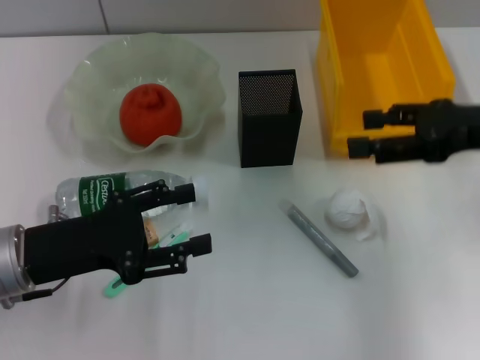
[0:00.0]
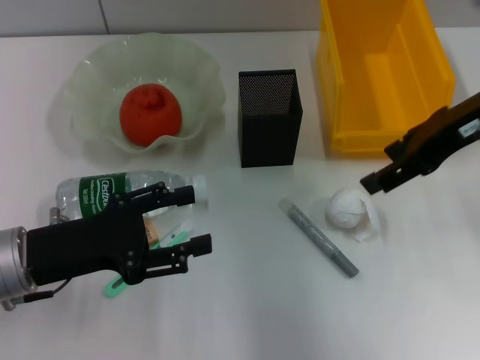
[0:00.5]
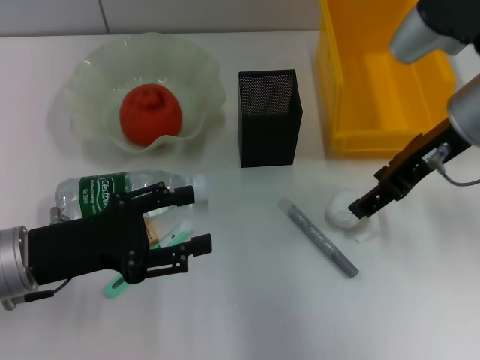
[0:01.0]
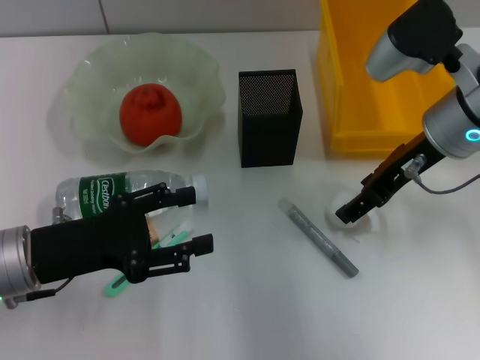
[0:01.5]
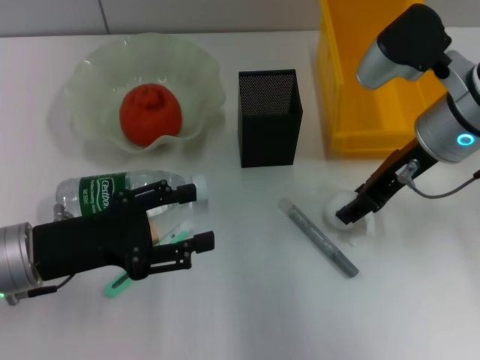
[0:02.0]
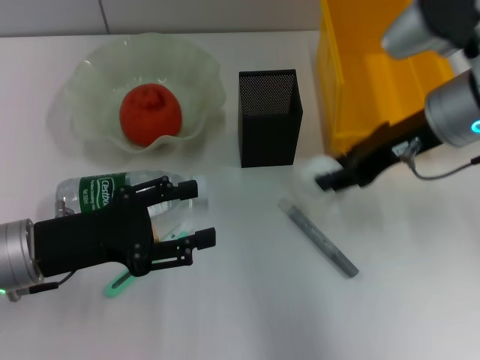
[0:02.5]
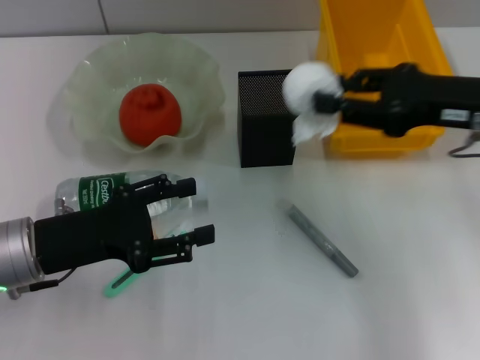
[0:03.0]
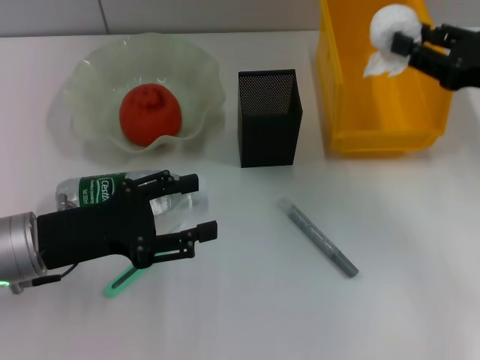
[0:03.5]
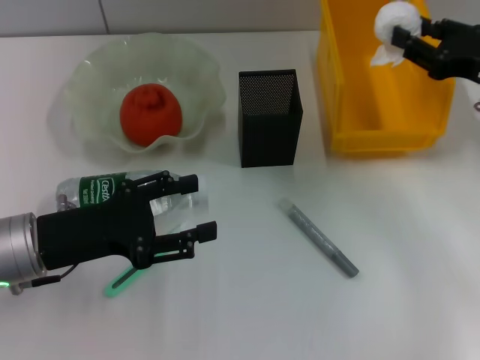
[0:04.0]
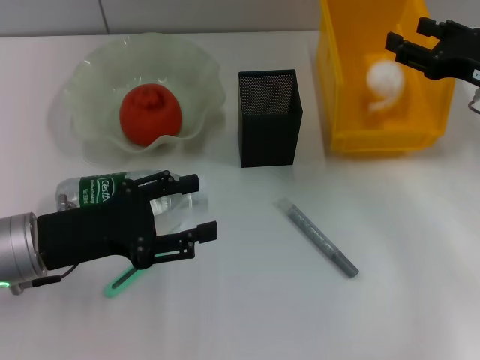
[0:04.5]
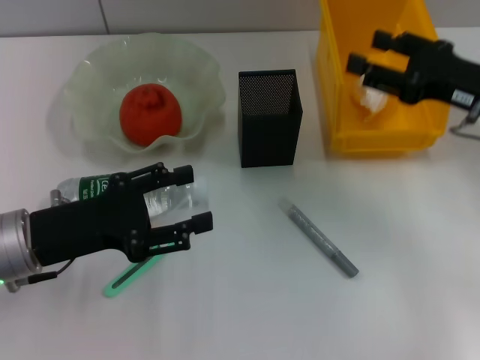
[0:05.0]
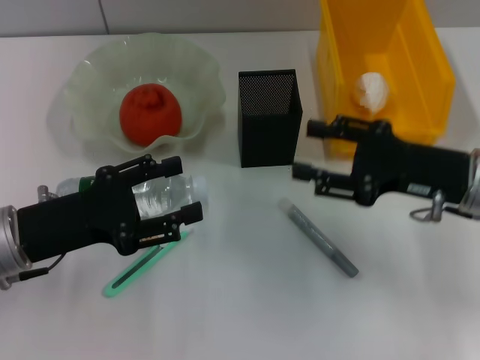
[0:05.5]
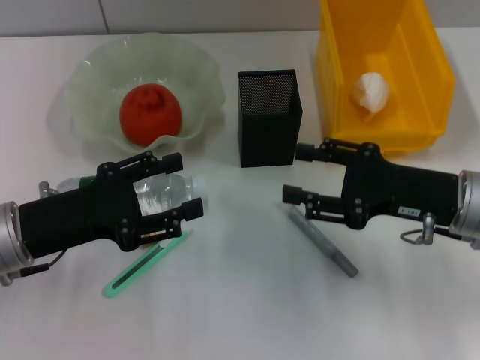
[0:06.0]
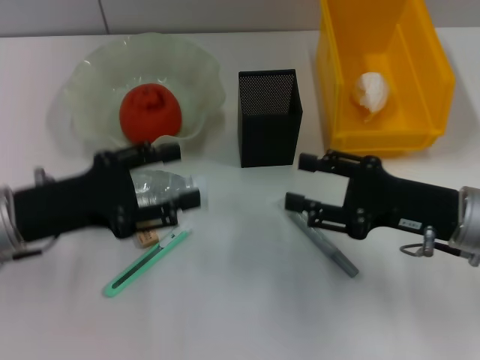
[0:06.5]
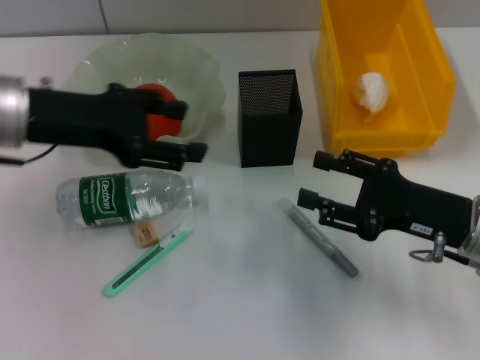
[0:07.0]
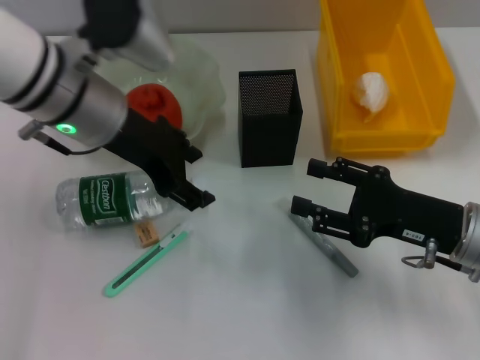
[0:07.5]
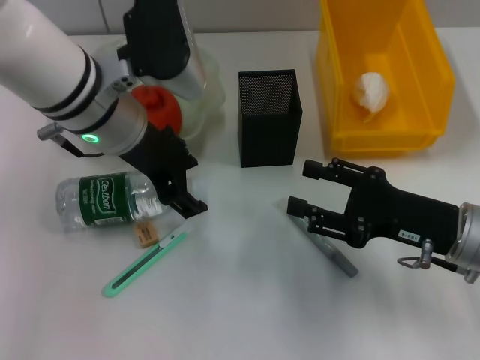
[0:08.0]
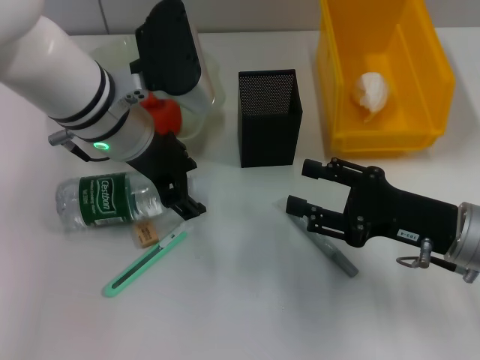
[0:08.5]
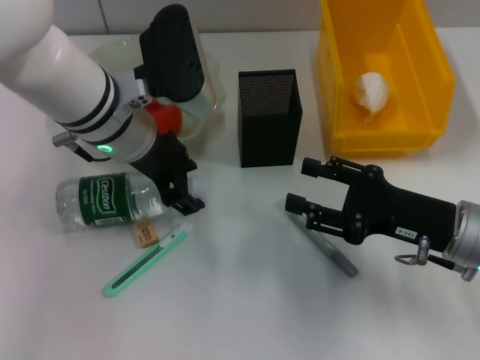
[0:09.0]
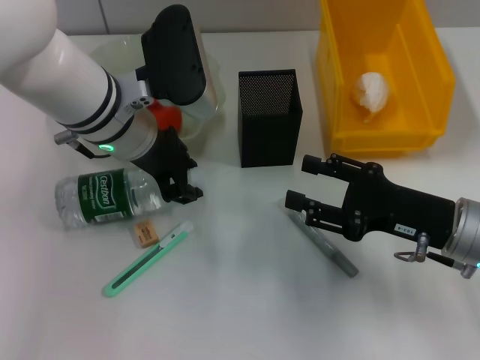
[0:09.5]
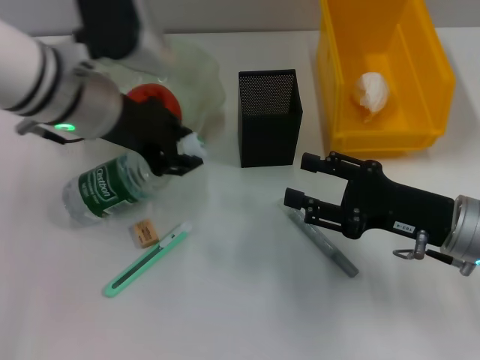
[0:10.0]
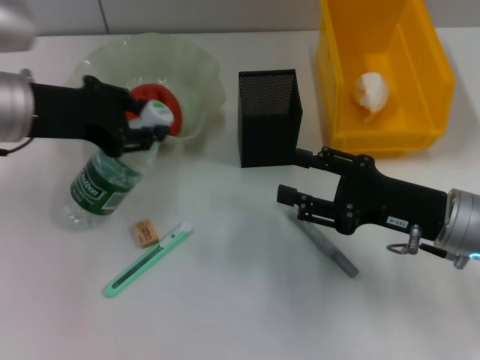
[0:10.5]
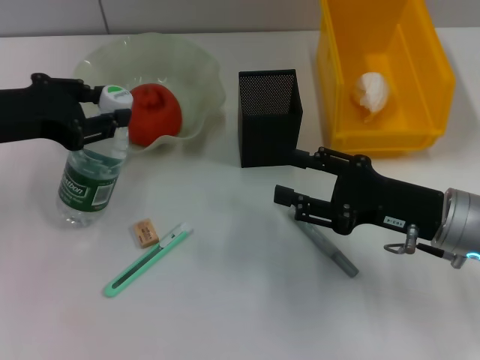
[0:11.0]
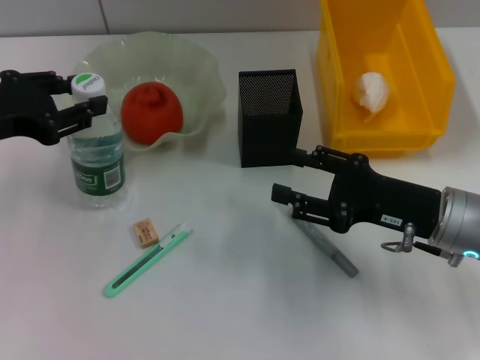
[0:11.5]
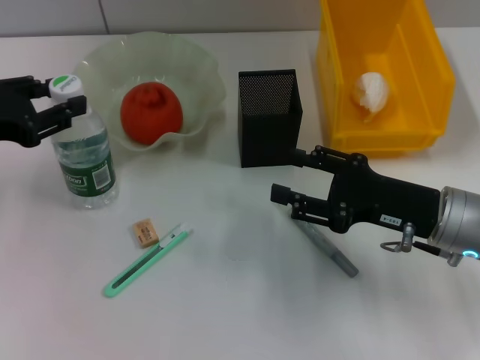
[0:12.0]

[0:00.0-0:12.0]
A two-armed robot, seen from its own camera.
Step, 0:00.0 to 0:02.0: Grab the paper ball with the right hand.
Step, 0:02.5 to 0:05.0: Place the paper ball into the trash can with the right hand.
Step, 0:05.5 to 0:09.0: Grab the water bottle with the left hand.
0:00.0 to 0:02.0: The right gripper moves to the left and forward, some 10 cm.
0:02.0 to 0:04.0: The right gripper shifts some 10 cm to the right.
0:04.0 to 0:06.0: The right gripper moves backward and to the left, approximately 10 cm.
0:06.0 to 0:08.0: The left gripper moves to the right, forward and upward, approximately 20 cm.
0:08.0 to 0:10.0: The left gripper closes.
0:10.0 to 0:12.0: The left gripper travels to the left by some 15 cm.

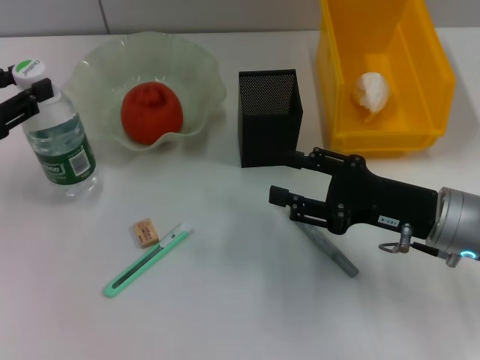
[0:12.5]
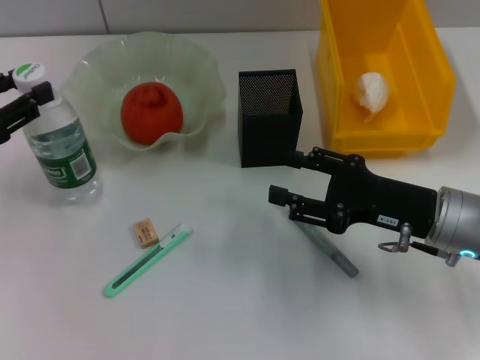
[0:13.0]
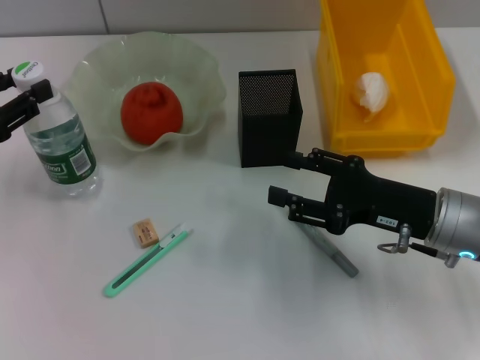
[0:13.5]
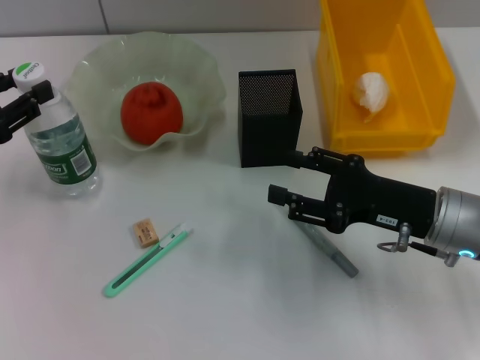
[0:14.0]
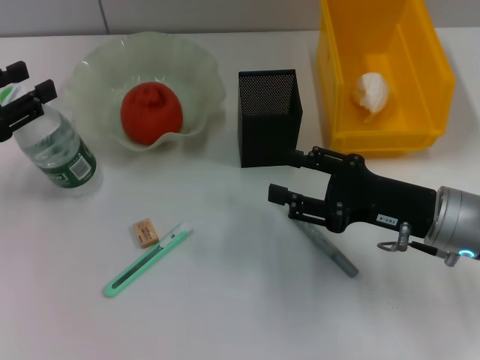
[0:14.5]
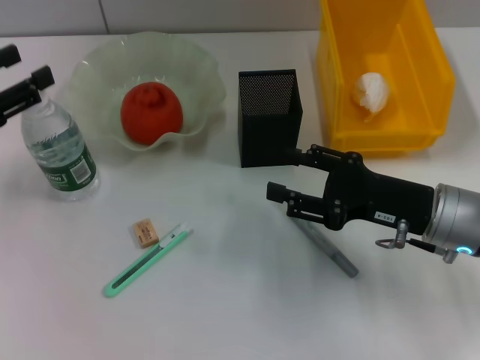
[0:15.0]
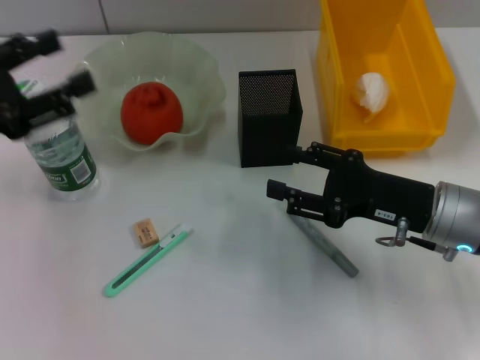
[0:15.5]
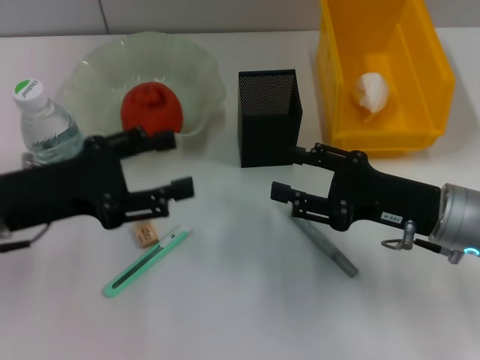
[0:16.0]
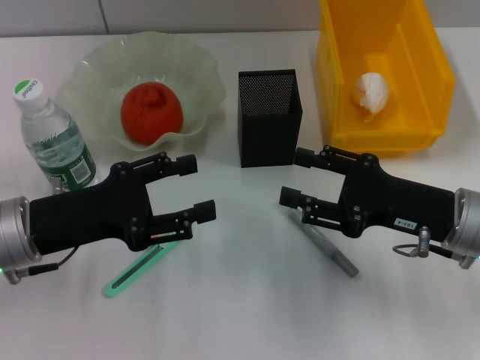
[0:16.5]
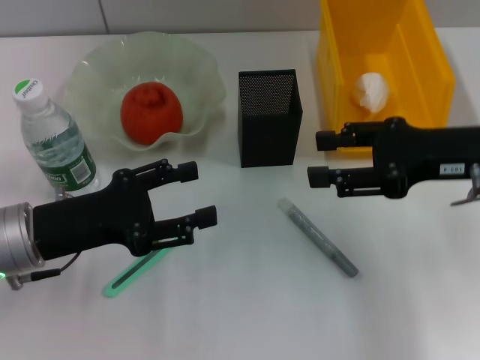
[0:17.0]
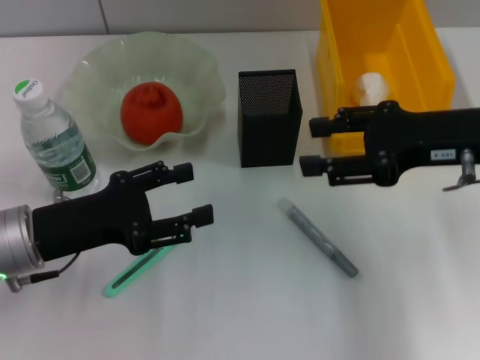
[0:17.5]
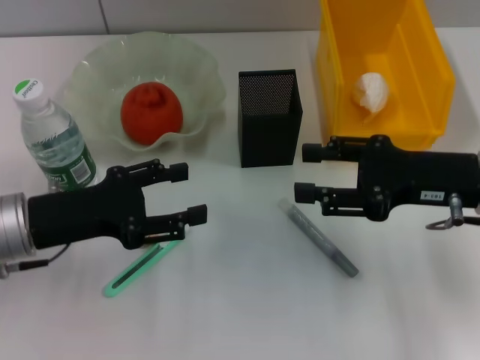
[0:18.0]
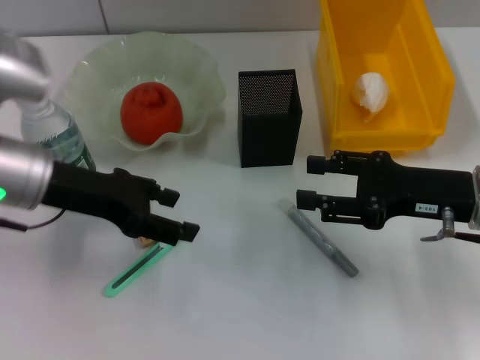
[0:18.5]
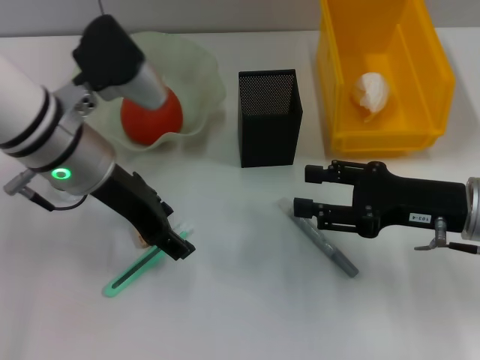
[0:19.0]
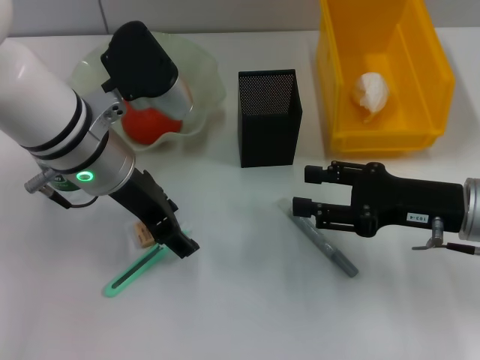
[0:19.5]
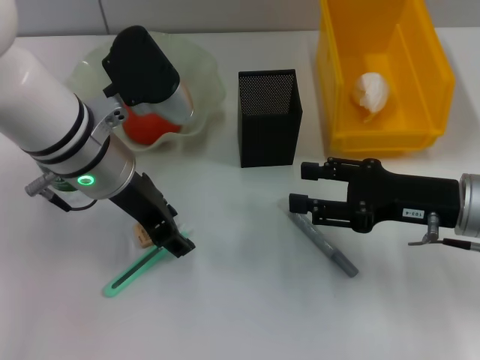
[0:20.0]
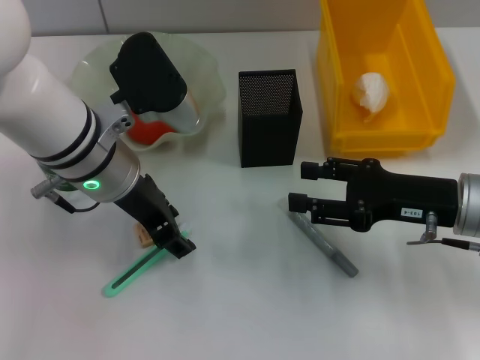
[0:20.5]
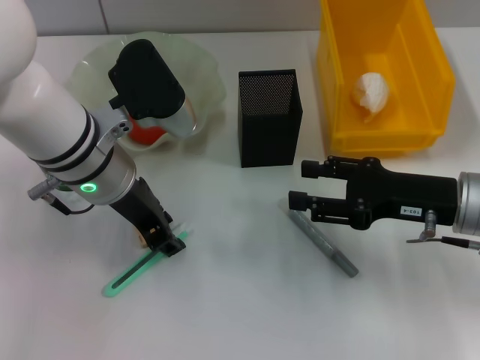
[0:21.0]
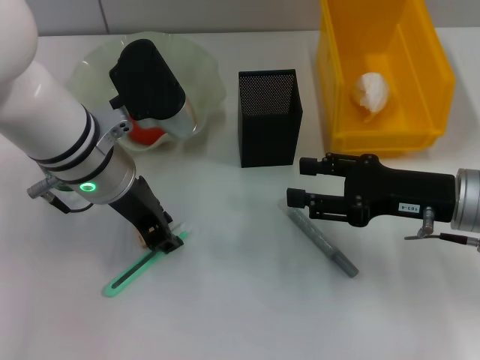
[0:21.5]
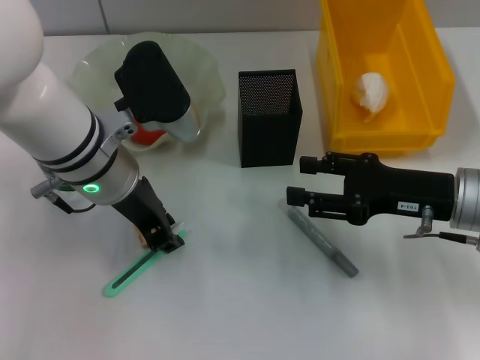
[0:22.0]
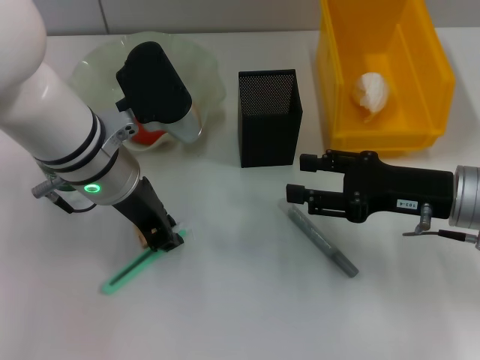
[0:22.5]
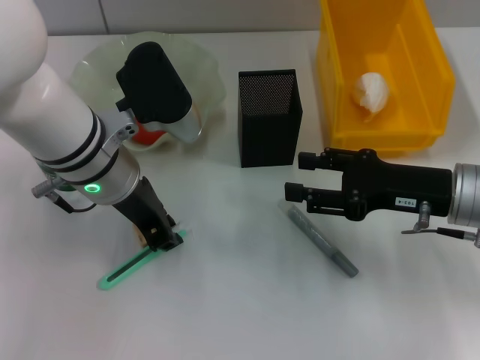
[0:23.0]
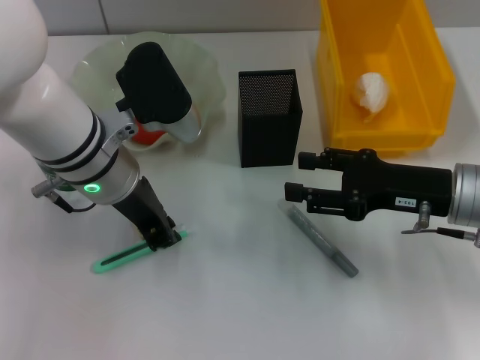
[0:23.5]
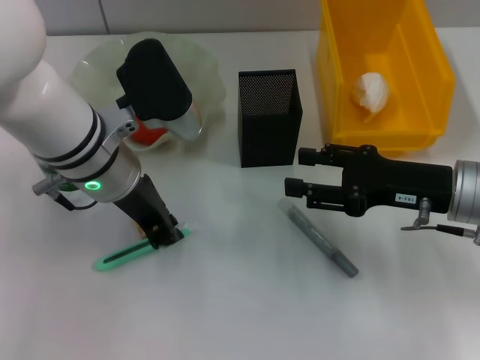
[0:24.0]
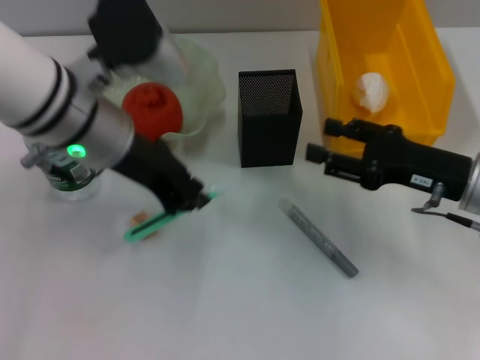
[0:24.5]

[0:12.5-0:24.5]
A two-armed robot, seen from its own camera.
Step, 0:12.5 to 0:14.5: Place the water bottle on the table with the left hand.
Step, 0:15.0 to 0:22.5: Grab the blue utility knife with the left hand.
0:12.5 to 0:14.5: The grippers stay close to where they were, moving slightly.
0:14.5 to 0:16.5: The left gripper shifts roughly 10 cm to the right.
0:16.5 to 0:18.5: The left gripper travels forward and upward by approximately 10 cm. Meanwhile the right gripper moves some 10 cm upward and comes back.
0:18.5 to 0:20.5: The left gripper travels to the right by approximately 10 cm.
0:20.5 to 0:22.5: The left gripper closes up.
0:22.5 to 0:24.5: The left gripper shifts approximately 5 cm upward.

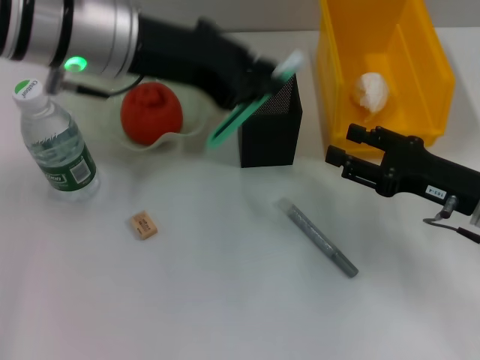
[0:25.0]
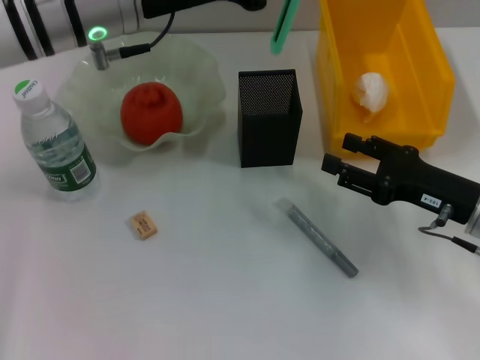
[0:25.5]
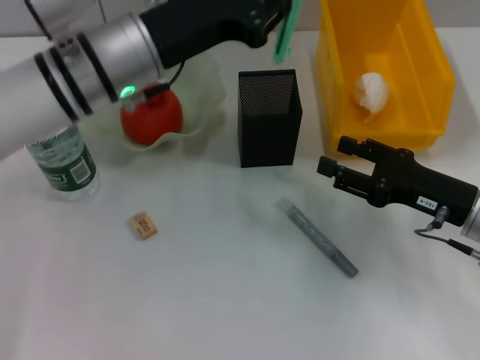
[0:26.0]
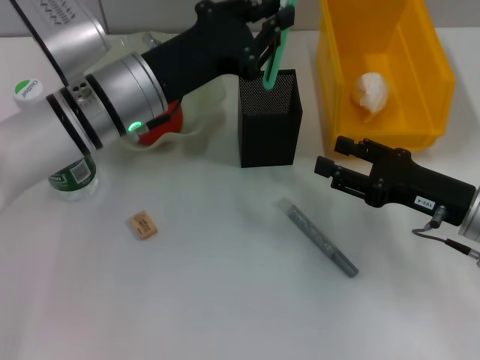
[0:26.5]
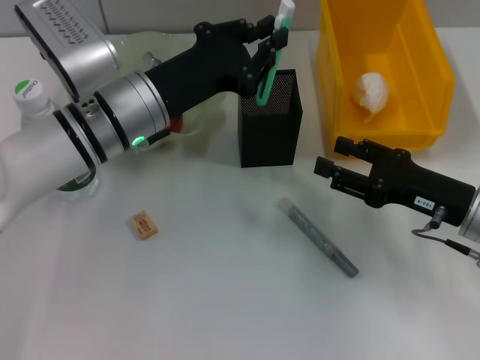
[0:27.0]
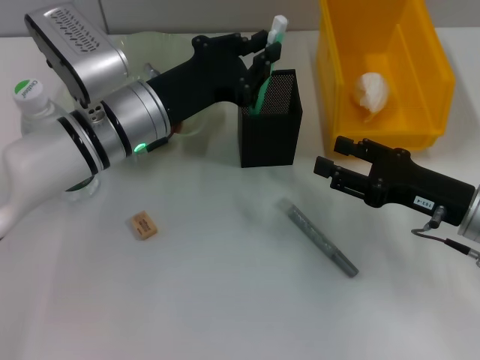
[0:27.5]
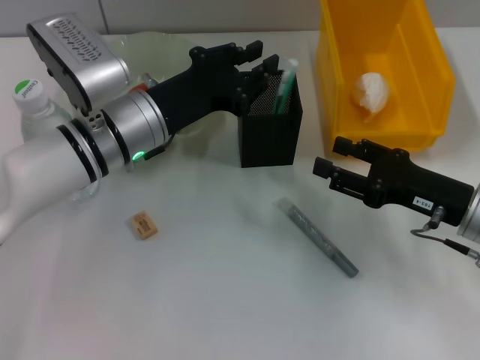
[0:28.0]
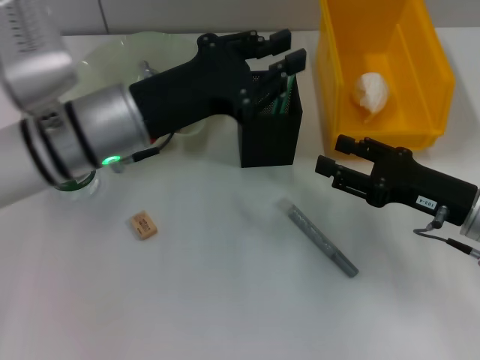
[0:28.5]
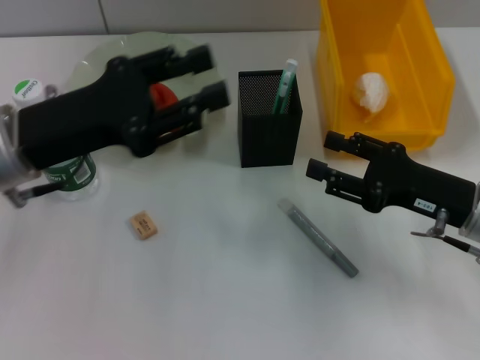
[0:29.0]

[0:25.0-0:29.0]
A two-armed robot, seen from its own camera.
Step, 0:25.0 to 0:28.0: Place the blue utility knife into the pen holder with the left hand.
0:25.0 to 0:27.0: The left gripper goes roughly 15 cm downward.
0:27.0 to 0:29.0: The left gripper heads to the left and backward, covering some 10 cm.
